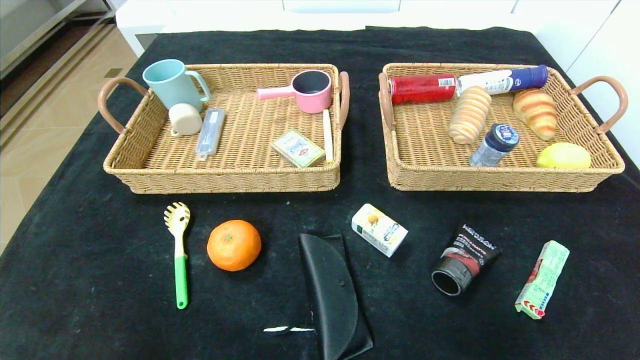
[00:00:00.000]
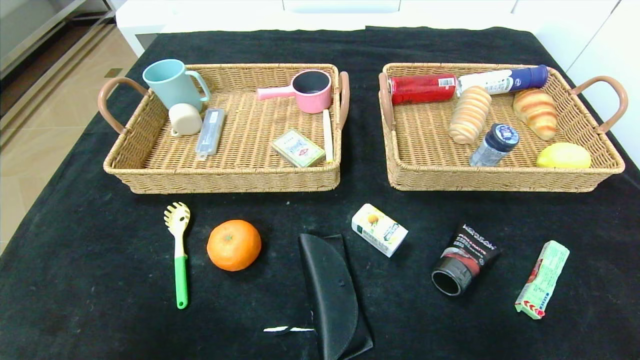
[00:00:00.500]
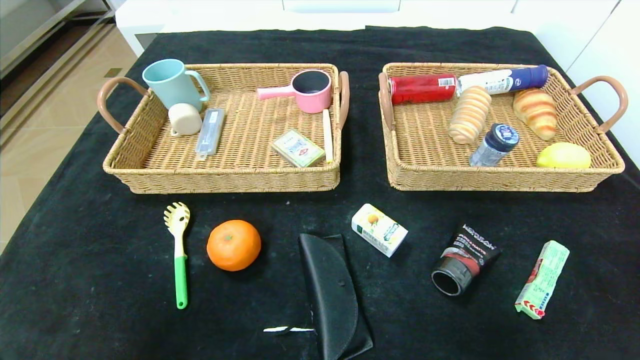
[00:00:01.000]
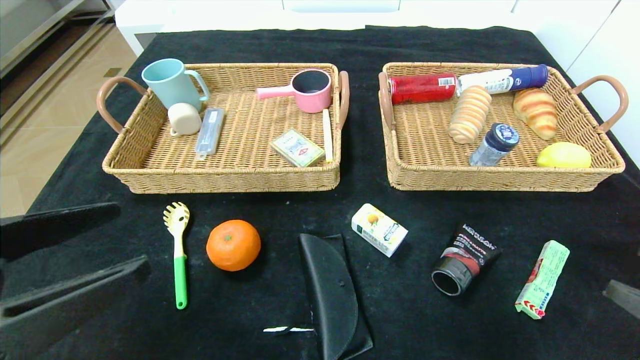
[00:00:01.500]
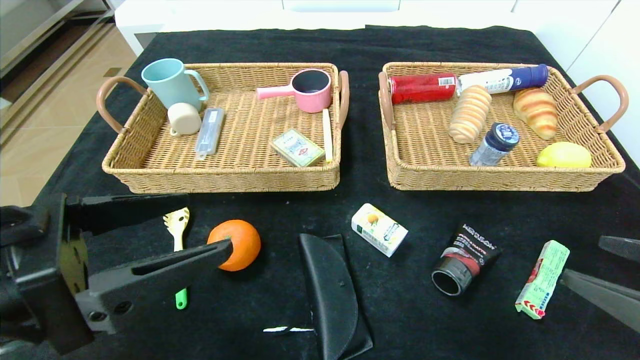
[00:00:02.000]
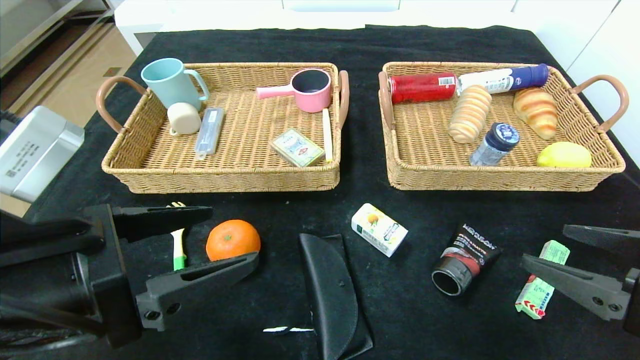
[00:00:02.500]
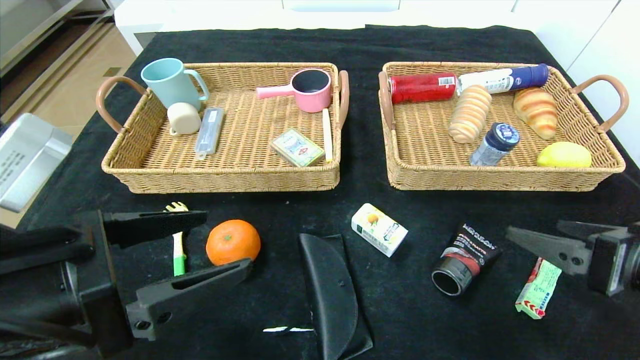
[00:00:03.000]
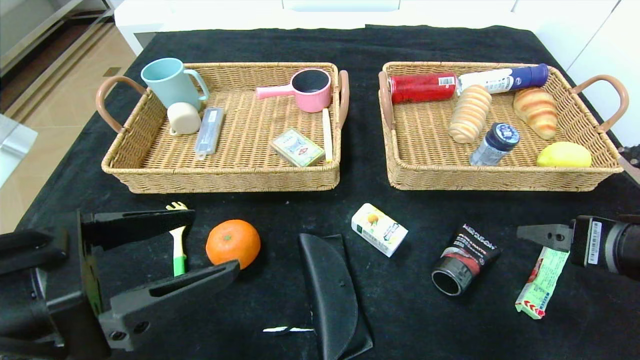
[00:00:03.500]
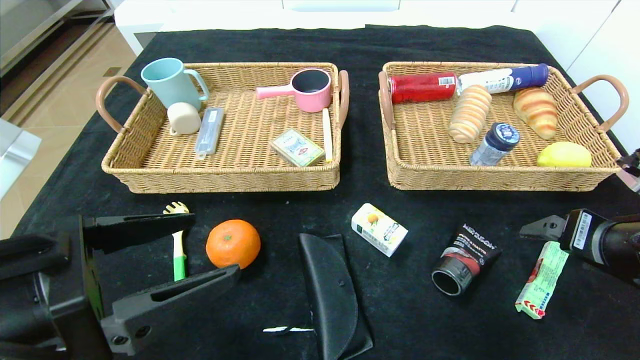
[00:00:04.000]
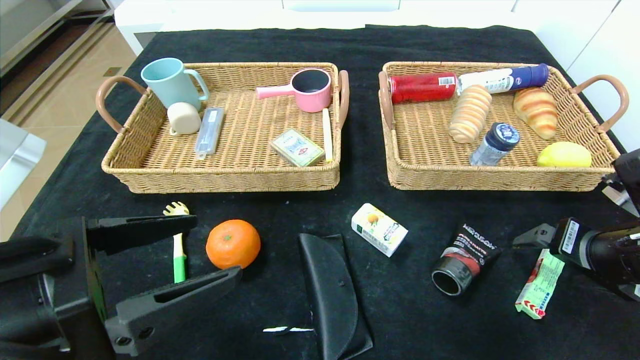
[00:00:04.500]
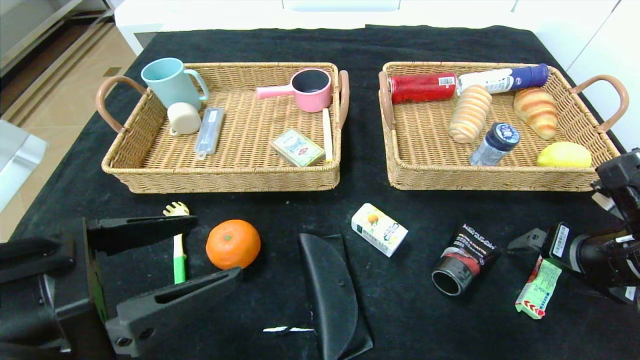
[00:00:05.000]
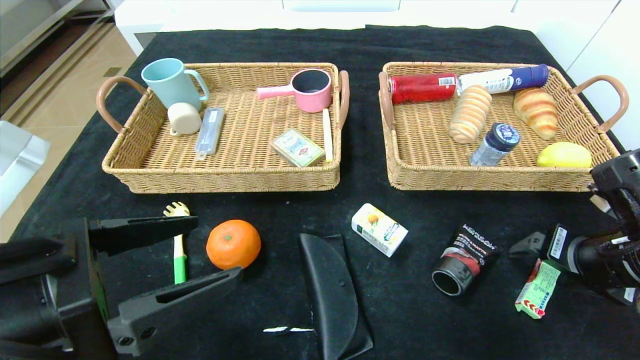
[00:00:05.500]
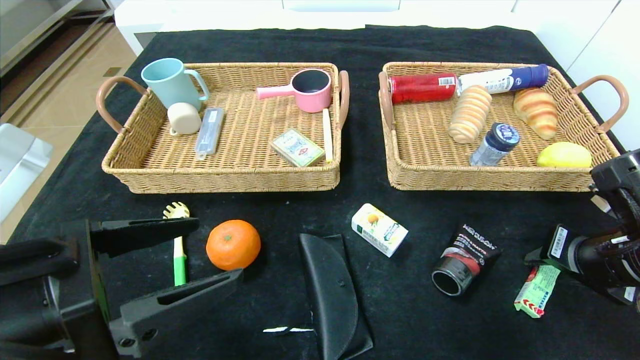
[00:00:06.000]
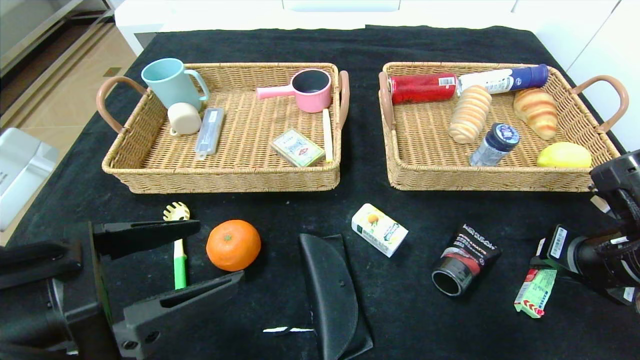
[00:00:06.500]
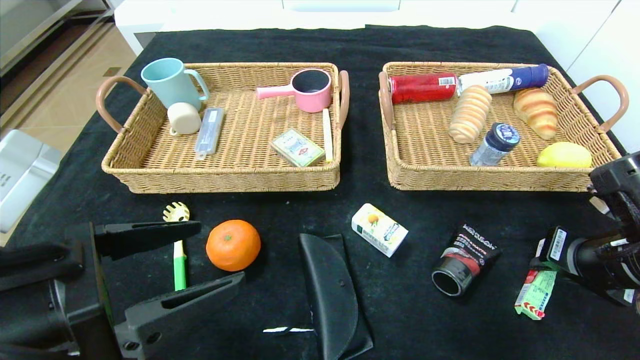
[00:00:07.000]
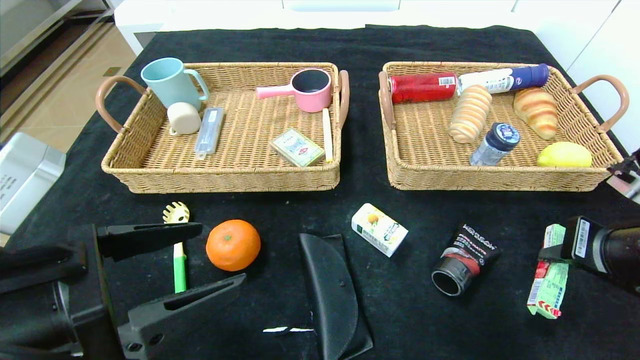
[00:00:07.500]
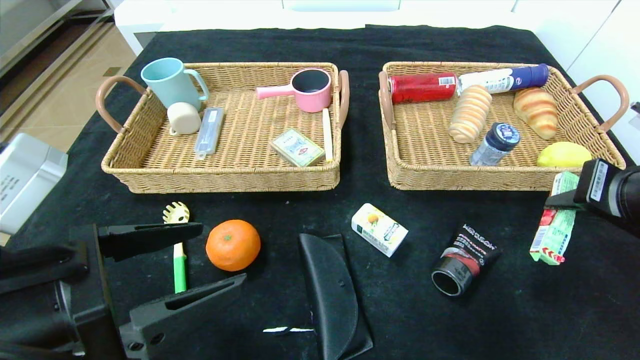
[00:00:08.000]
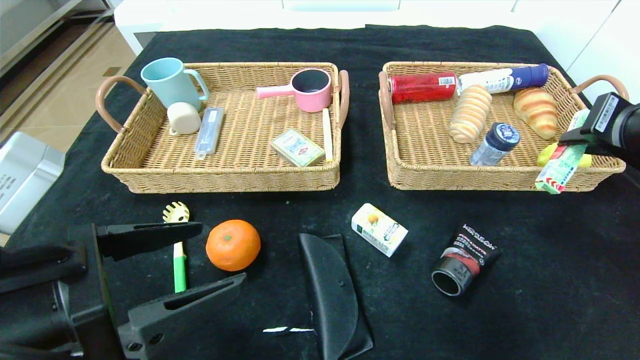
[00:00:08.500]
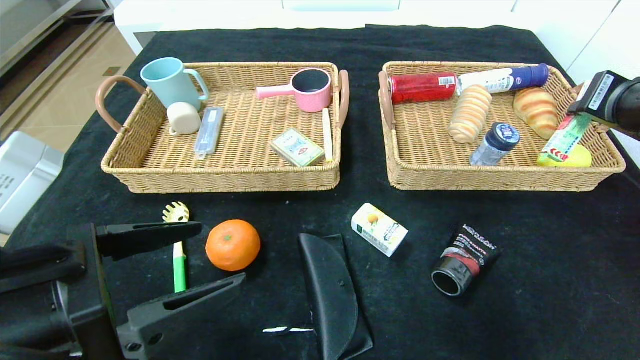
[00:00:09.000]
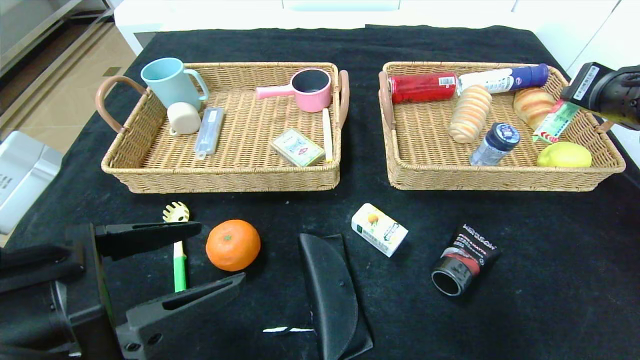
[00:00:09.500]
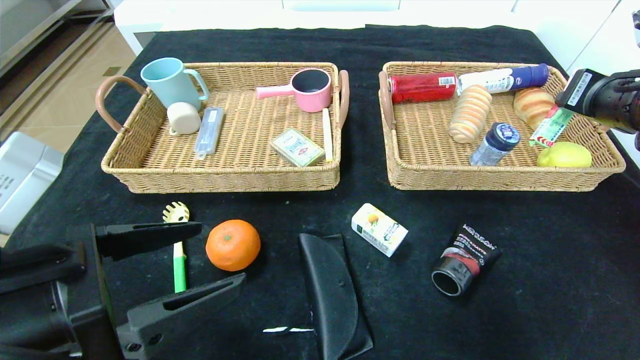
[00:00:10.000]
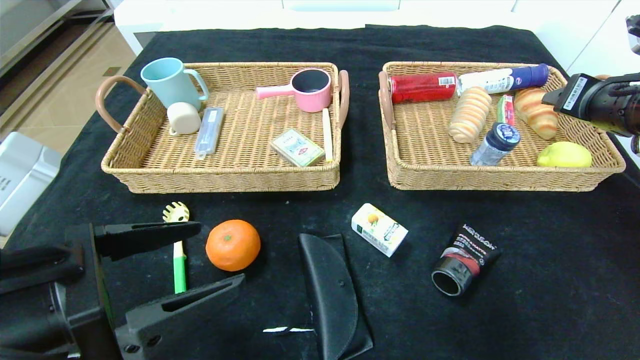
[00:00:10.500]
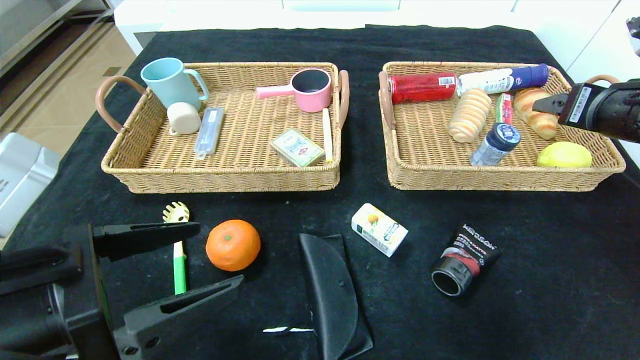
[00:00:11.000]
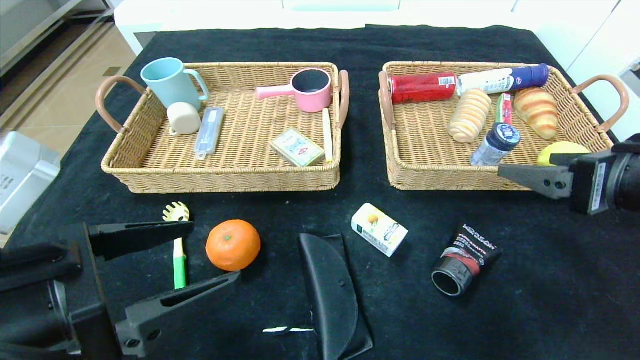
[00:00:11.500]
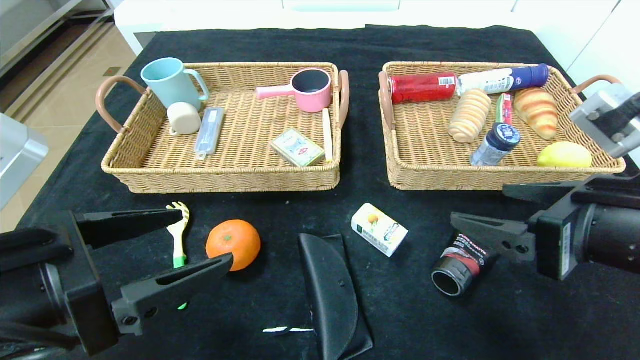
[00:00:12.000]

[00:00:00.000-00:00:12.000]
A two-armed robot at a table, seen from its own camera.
Step, 00:00:00.000 to 00:00:12.000: Pick up the fruit fudge and put it in the right basket.
00:00:00.000 to 00:00:02.000: The grippers both shift upward and forward by roughly 20 cm.
00:00:02.000 to 00:00:04.000: The right gripper shifts roughly 10 cm forward.
00:00:04.000 to 00:00:06.000: The right gripper closes up.
00:00:06.000 to 00:00:08.000: The right gripper moves upward, roughly 10 cm.
00:00:08.000 to 00:00:10.000: The right gripper travels forward by some 10 cm.
00:00:10.000 to 00:00:12.000: The right gripper goes some 20 cm backward and to the left, and opens up.

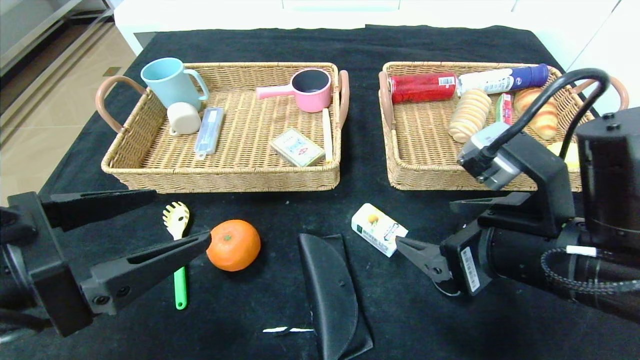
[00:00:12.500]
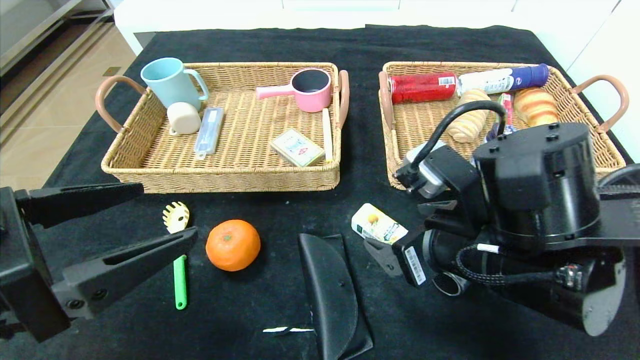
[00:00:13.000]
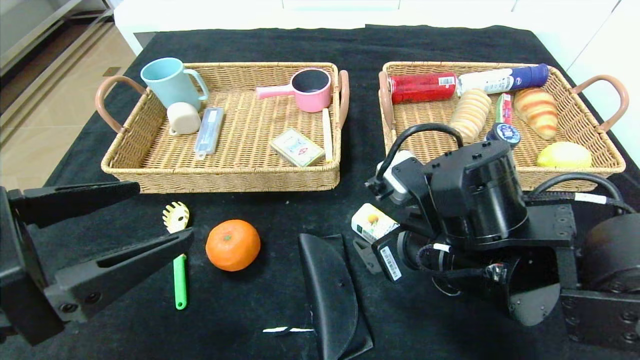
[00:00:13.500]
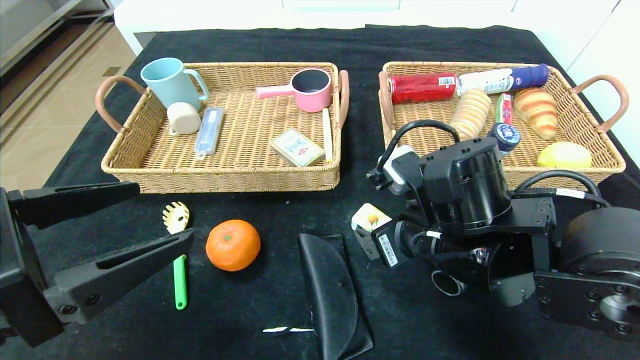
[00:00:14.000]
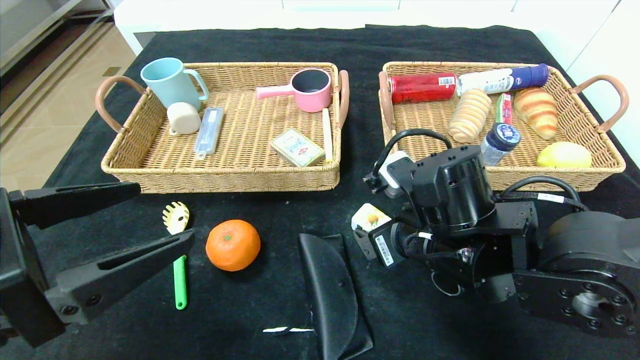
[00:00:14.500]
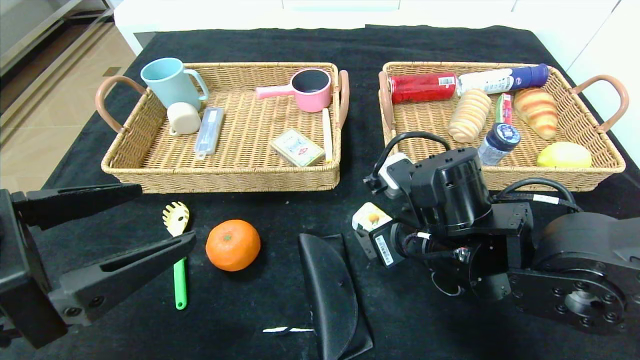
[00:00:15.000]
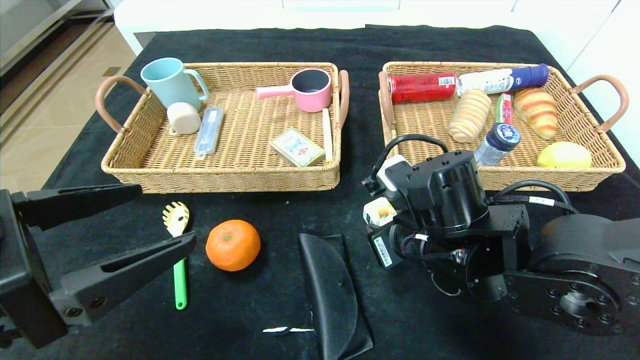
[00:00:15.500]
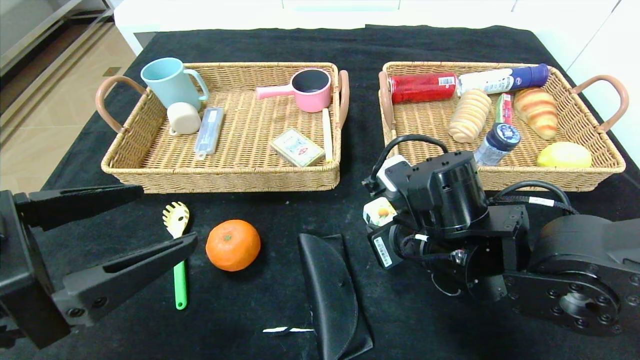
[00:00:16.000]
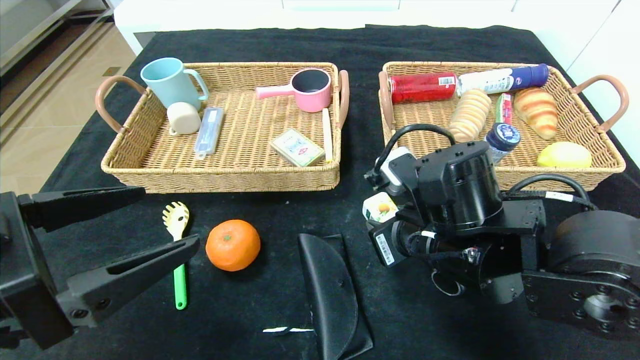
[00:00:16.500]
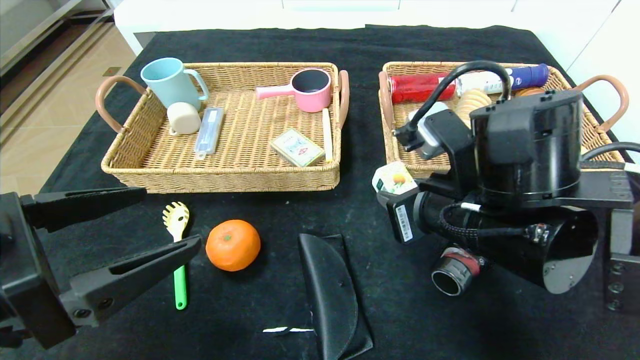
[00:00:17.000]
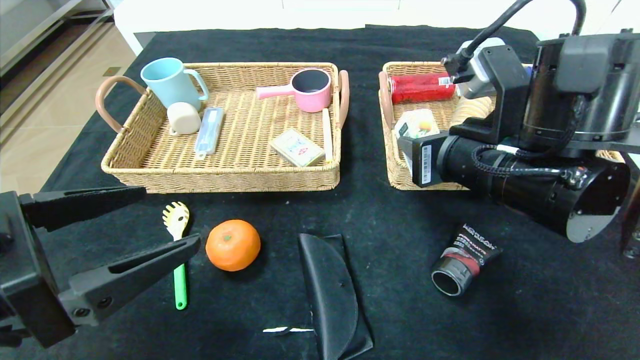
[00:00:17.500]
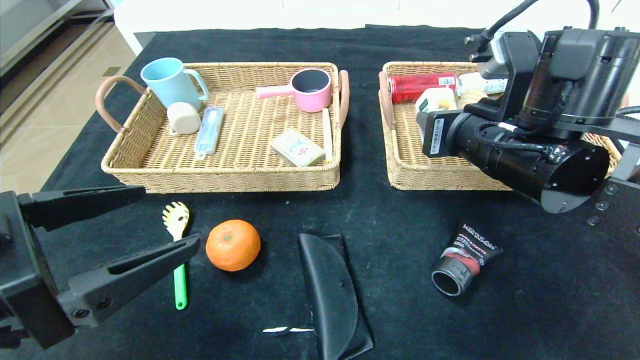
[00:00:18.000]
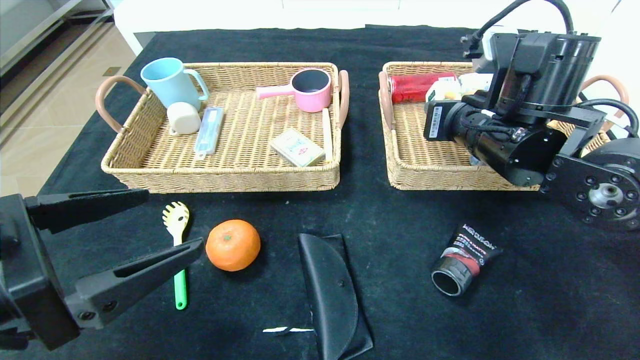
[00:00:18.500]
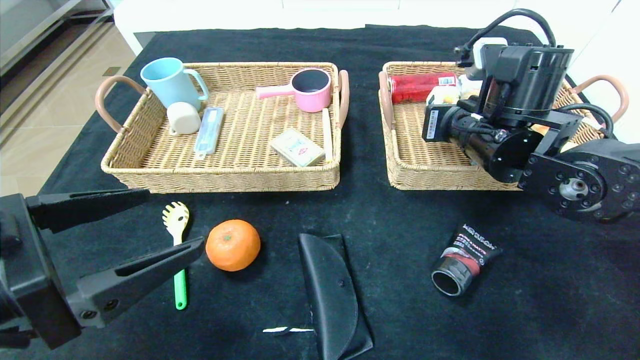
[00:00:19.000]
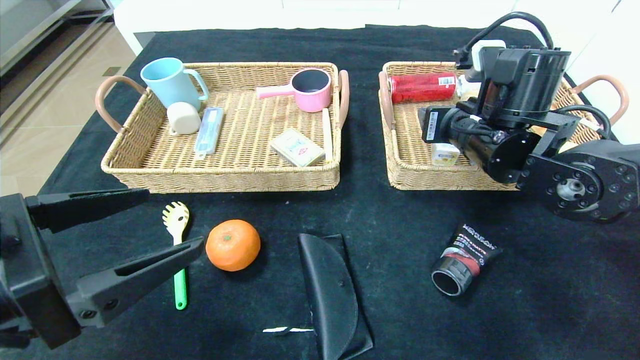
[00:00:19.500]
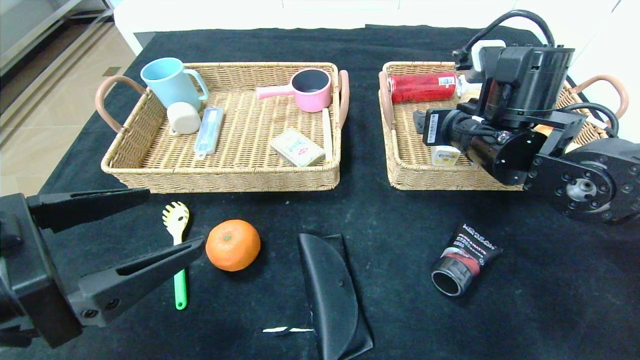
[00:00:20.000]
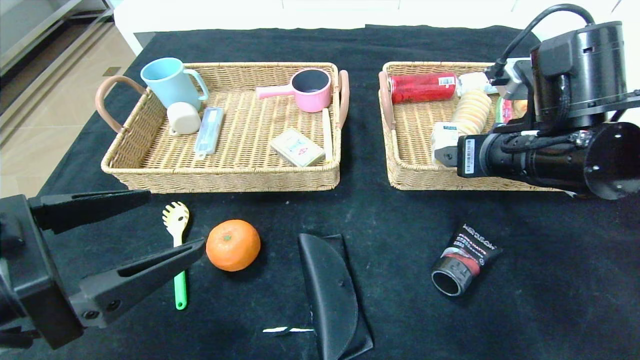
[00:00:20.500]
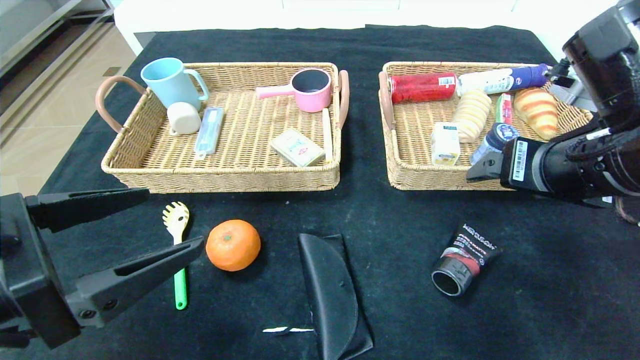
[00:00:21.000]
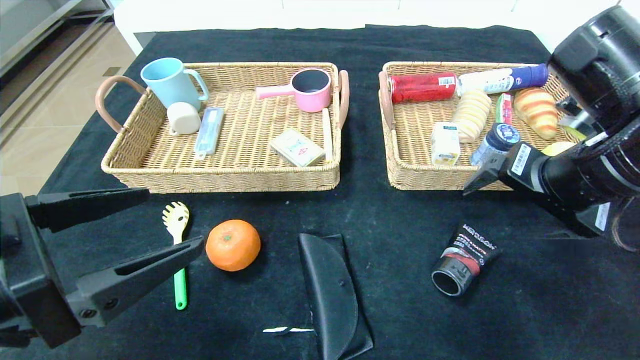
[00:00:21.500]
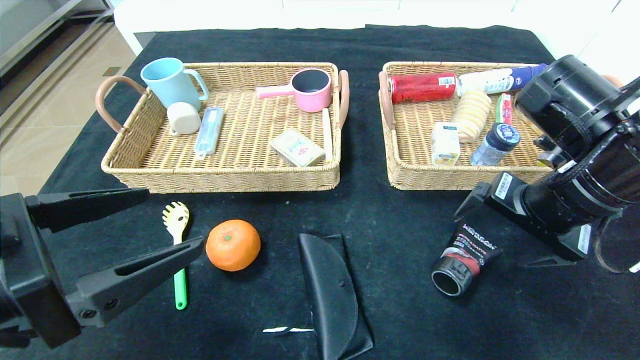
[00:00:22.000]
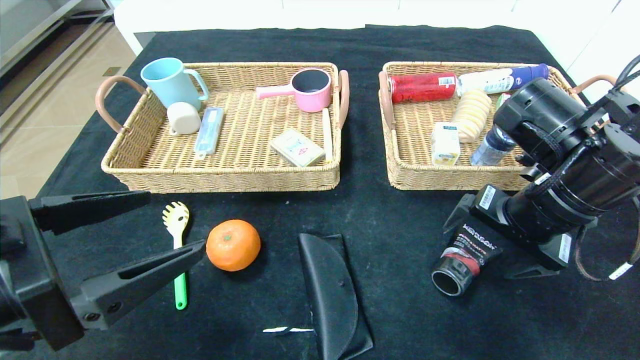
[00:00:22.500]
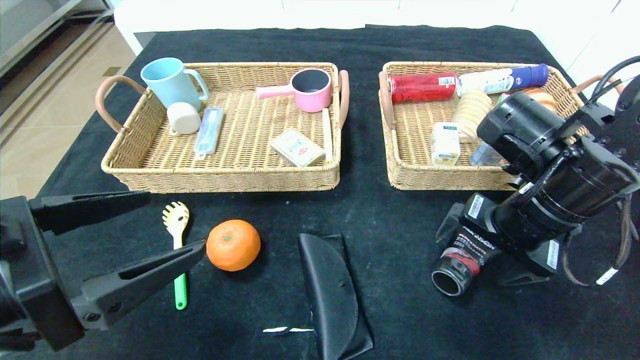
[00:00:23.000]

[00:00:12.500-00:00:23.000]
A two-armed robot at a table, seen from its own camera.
Step, 00:00:12.500 to 00:00:21.500: Pick up the square chewing gum and put it in the right basket.
00:00:12.500 to 00:00:14.500: The right gripper is displaced forward and to the left by some 10 cm.
00:00:14.500 to 00:00:16.500: The right gripper closes its fingers.
00:00:16.500 to 00:00:19.000: The right gripper is displaced forward, upward and to the right by roughly 15 cm.
00:00:19.000 to 00:00:21.000: The right gripper shifts some 10 cm backward, and opens up.
00:00:21.000 to 00:00:23.000: The right gripper shifts some 5 cm downward.
